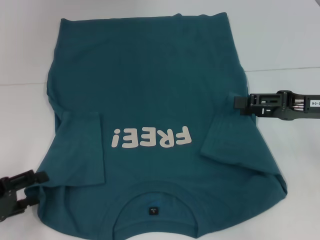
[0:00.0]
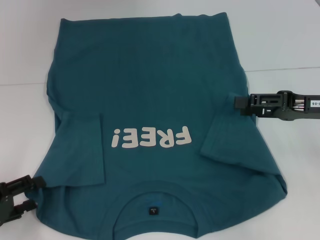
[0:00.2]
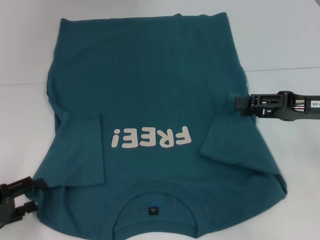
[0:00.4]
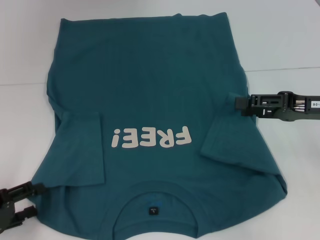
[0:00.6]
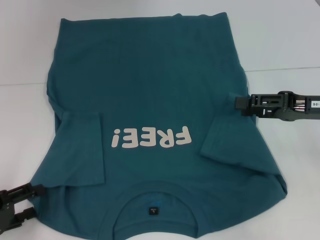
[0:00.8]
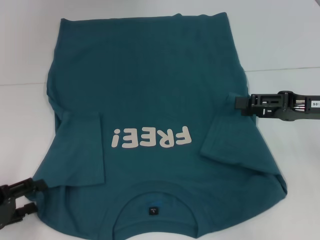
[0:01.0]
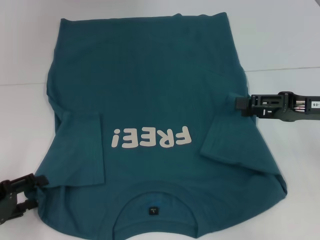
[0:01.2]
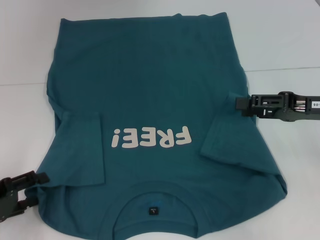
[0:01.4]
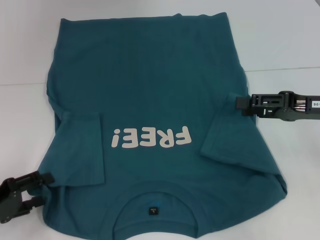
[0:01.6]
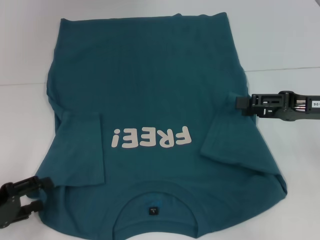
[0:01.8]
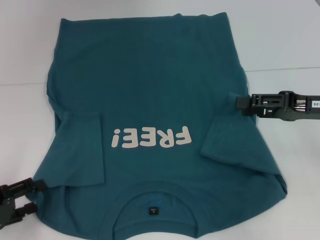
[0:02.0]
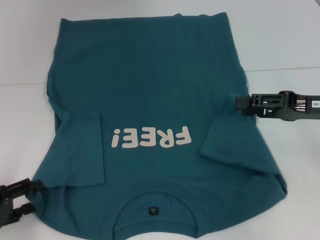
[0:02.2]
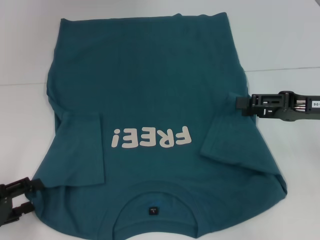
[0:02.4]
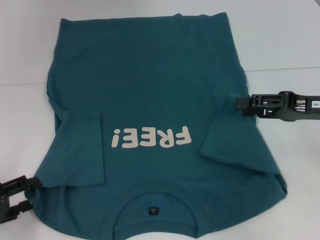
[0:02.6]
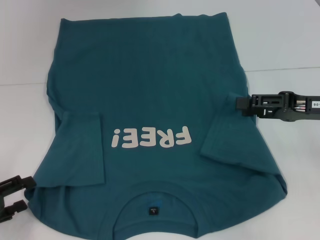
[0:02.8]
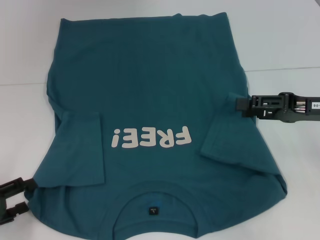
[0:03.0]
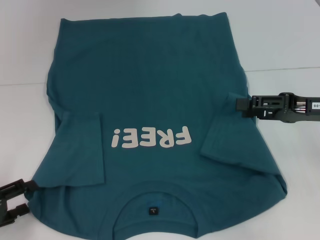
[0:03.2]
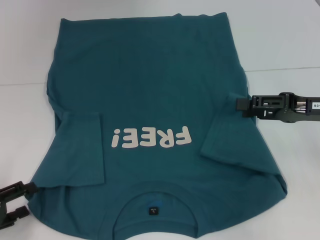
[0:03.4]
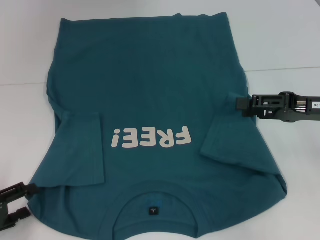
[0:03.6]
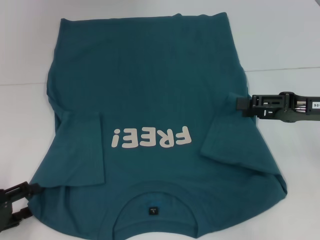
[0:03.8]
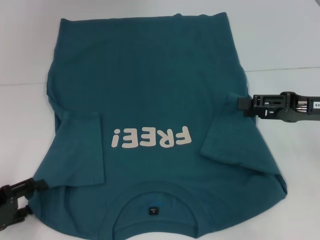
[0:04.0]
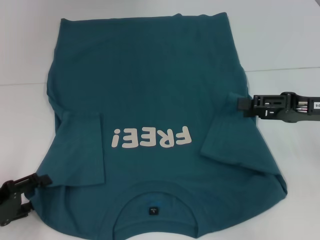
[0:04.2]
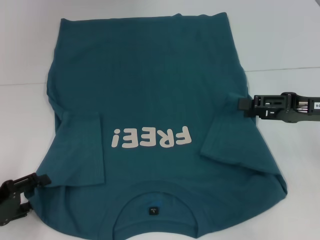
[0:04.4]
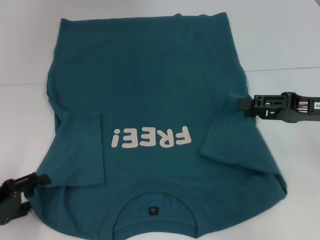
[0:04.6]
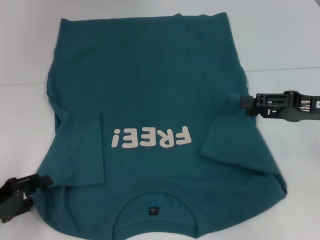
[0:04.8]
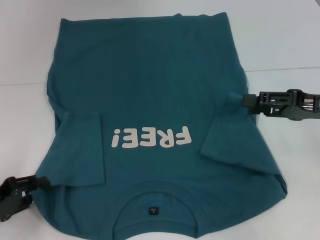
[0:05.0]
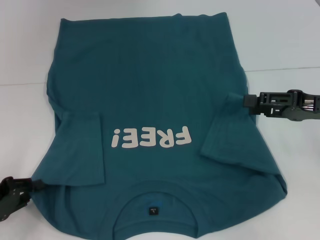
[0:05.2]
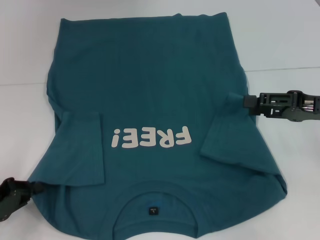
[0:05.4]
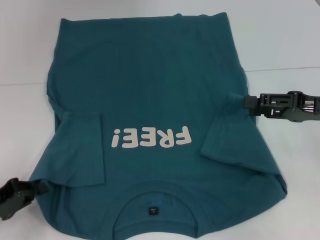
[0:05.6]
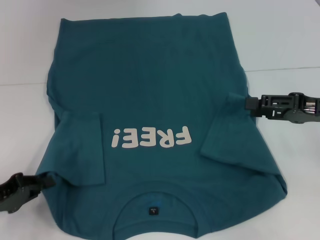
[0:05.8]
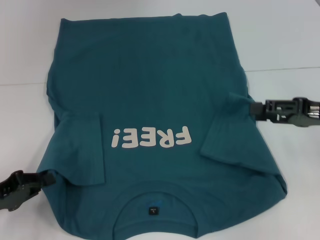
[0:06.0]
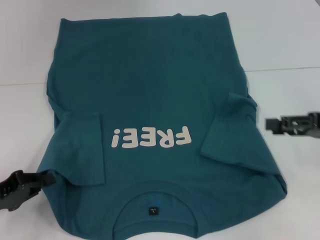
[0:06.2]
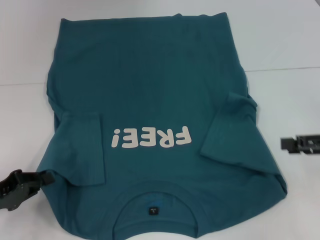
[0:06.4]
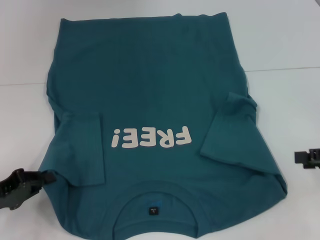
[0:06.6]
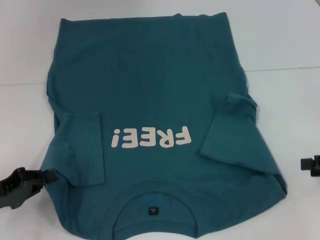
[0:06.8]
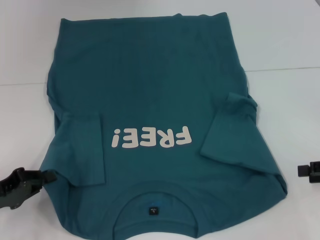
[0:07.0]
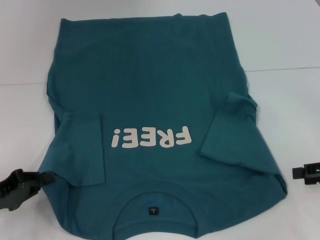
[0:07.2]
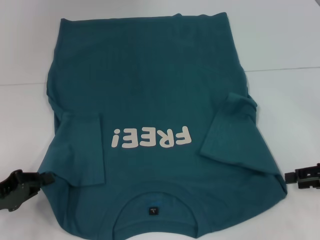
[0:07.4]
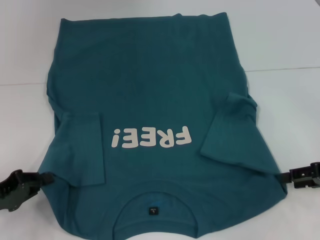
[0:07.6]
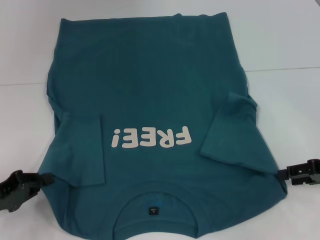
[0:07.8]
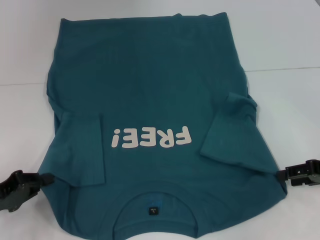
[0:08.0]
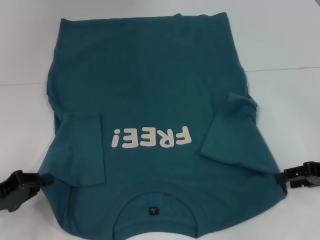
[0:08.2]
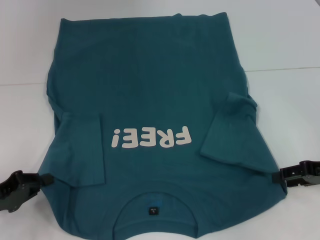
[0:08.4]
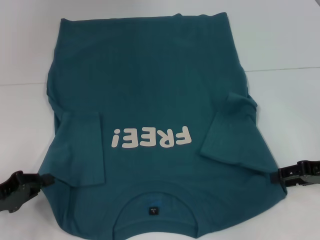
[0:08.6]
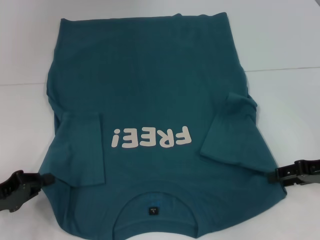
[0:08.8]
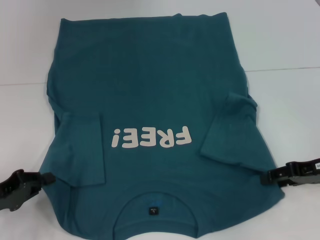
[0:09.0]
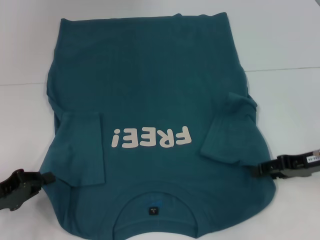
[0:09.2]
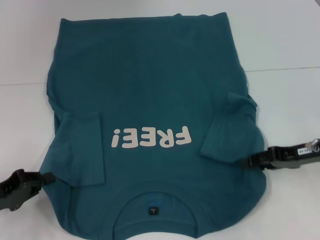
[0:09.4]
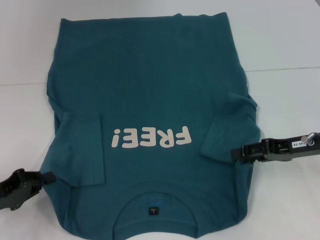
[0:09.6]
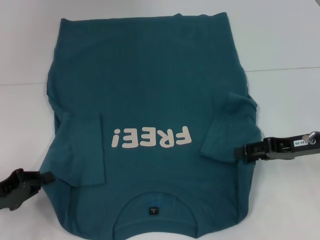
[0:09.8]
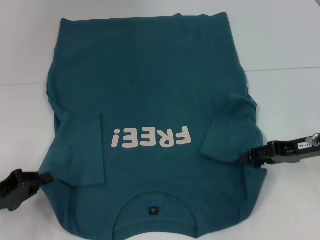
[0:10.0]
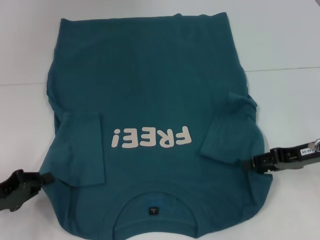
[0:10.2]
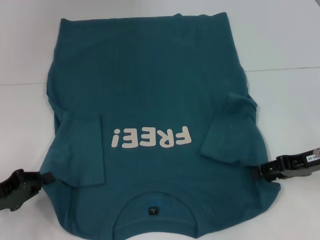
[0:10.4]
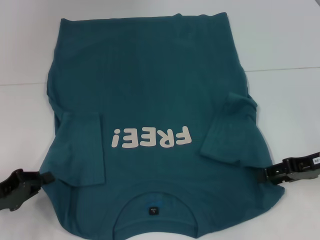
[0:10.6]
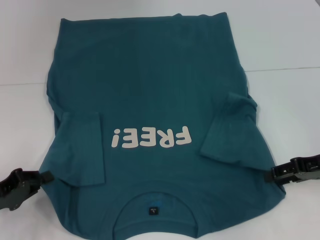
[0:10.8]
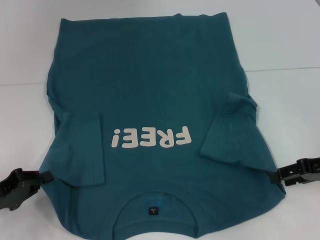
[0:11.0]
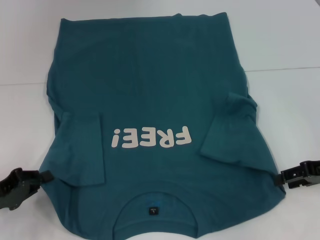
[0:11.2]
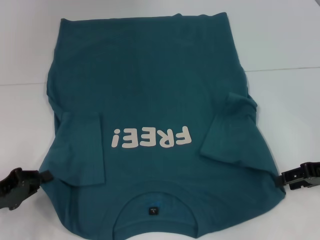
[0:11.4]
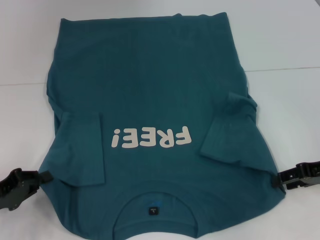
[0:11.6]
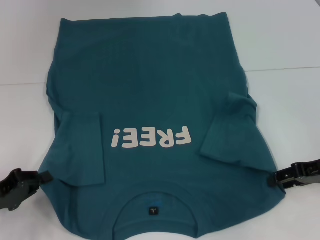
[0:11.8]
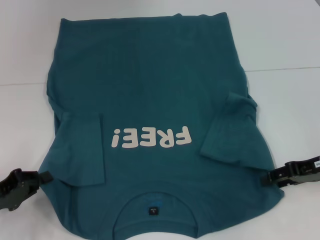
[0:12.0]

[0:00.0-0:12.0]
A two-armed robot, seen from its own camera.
Step, 0:00.0 to 0:05.4: Grab the bottom left corner with your left hand.
0:00.0 to 0:04.4: The grippers move only a little.
0:04.4 to 0:06.0: The left gripper closes.
0:06.0 to 0:07.6: The right gripper travels downward by approximately 5 cm.
0:07.6 to 0:09.0: The grippers make only small movements.
0:09.0 to 0:12.0: There are only small adjustments of the grippers.

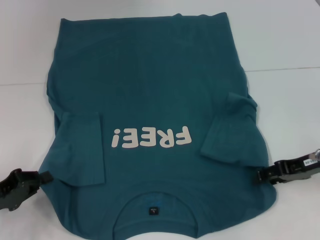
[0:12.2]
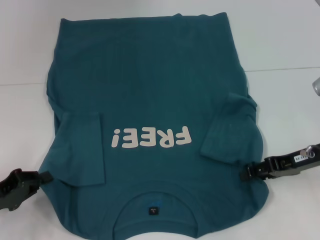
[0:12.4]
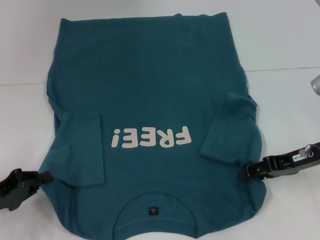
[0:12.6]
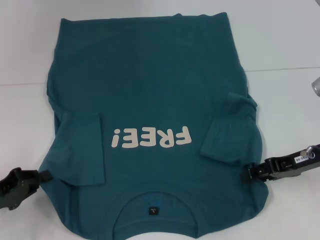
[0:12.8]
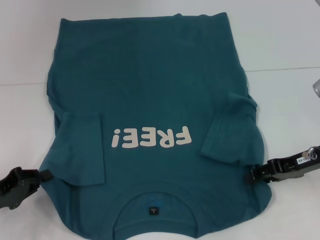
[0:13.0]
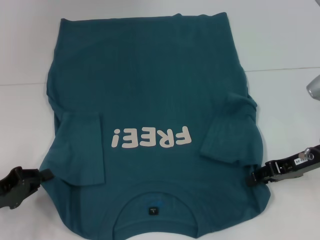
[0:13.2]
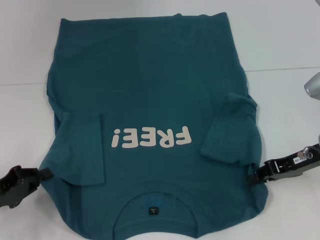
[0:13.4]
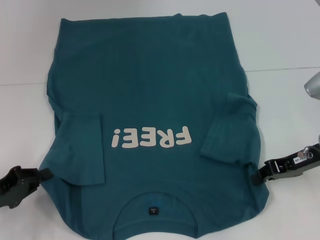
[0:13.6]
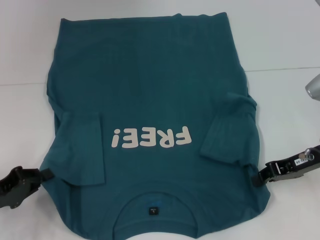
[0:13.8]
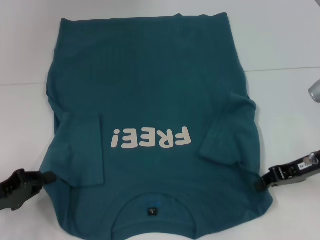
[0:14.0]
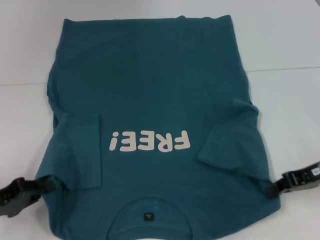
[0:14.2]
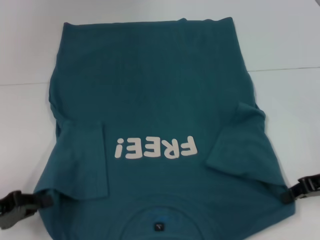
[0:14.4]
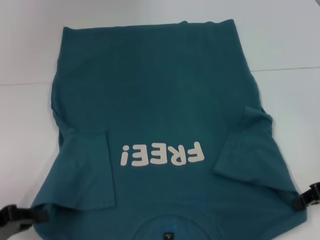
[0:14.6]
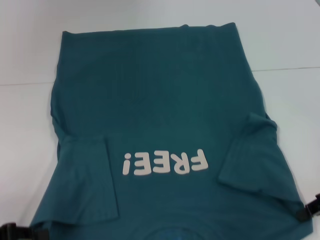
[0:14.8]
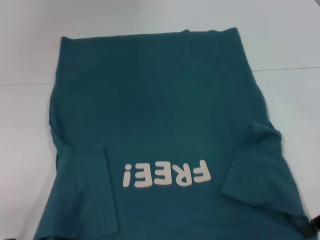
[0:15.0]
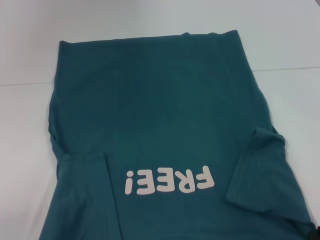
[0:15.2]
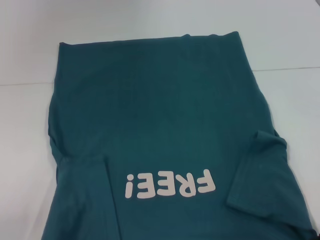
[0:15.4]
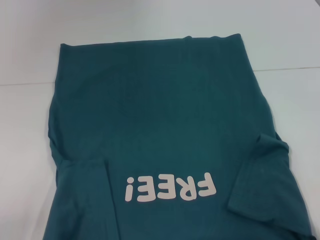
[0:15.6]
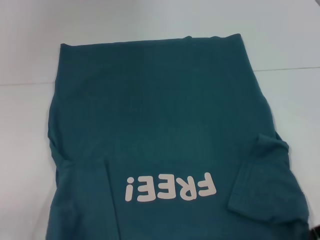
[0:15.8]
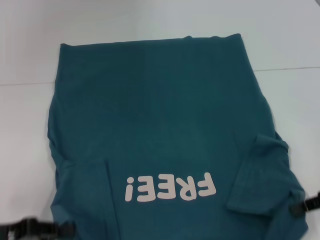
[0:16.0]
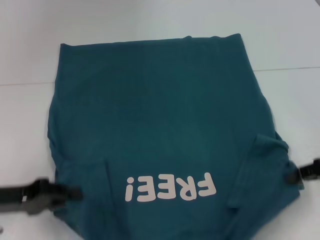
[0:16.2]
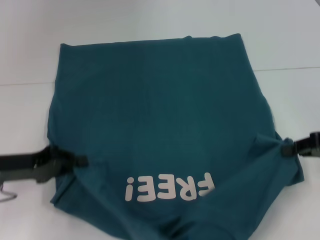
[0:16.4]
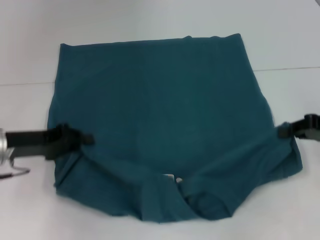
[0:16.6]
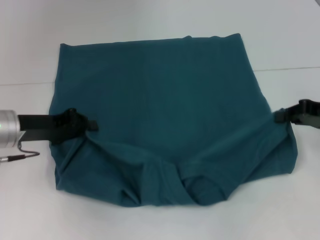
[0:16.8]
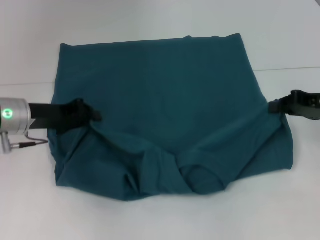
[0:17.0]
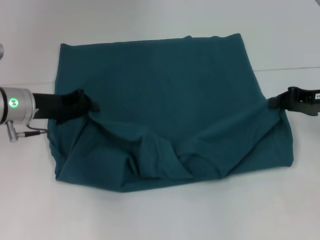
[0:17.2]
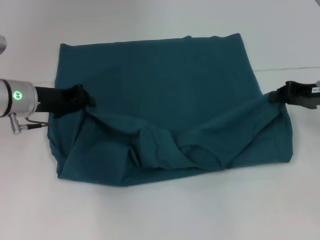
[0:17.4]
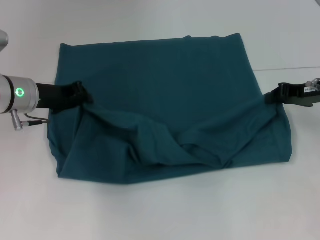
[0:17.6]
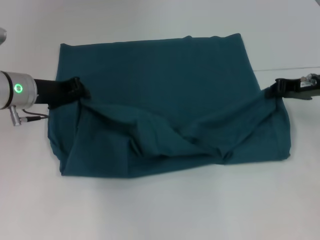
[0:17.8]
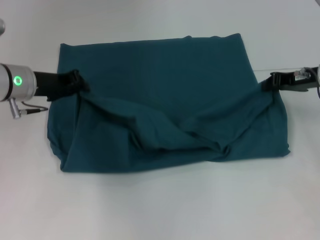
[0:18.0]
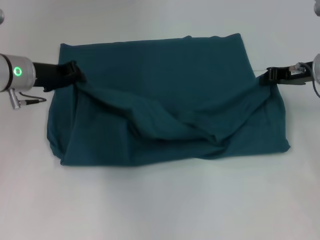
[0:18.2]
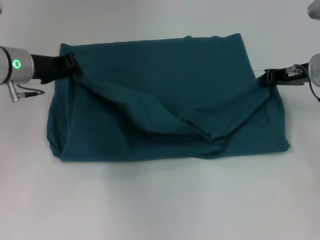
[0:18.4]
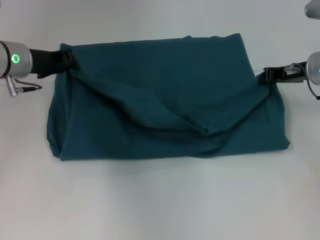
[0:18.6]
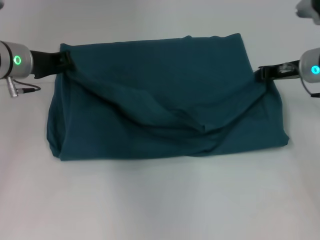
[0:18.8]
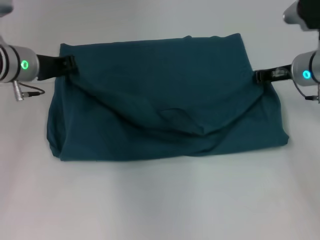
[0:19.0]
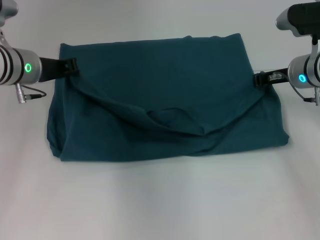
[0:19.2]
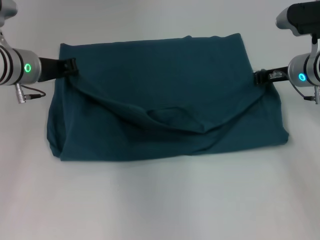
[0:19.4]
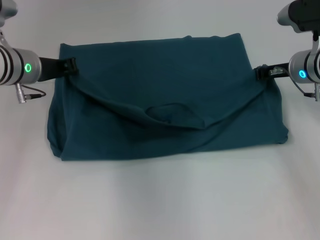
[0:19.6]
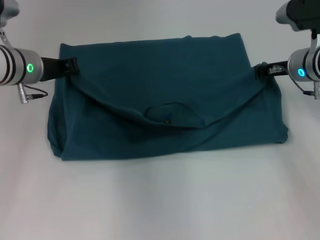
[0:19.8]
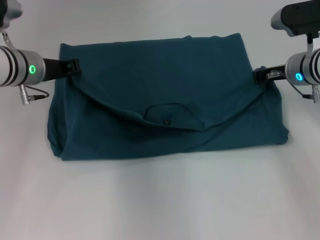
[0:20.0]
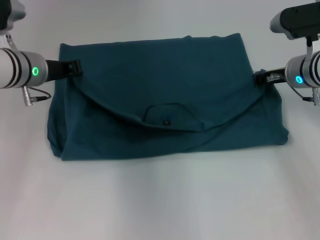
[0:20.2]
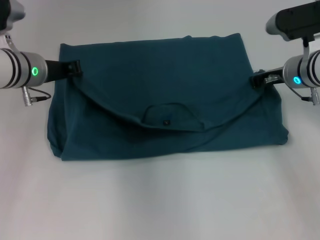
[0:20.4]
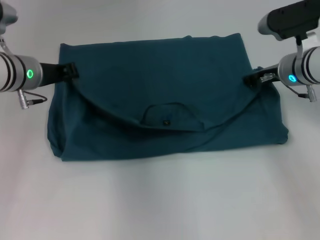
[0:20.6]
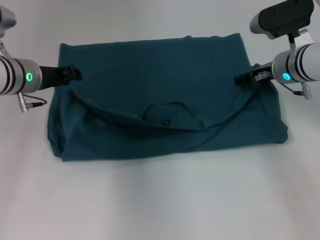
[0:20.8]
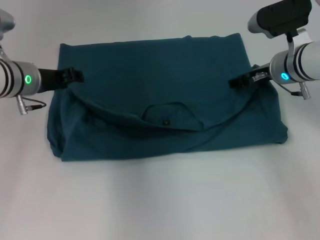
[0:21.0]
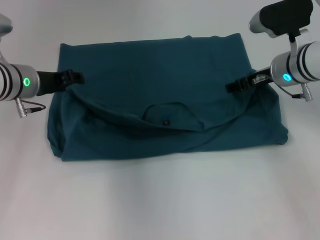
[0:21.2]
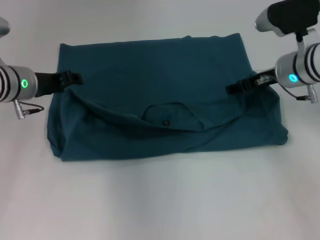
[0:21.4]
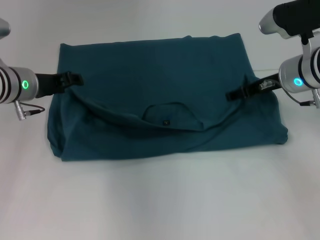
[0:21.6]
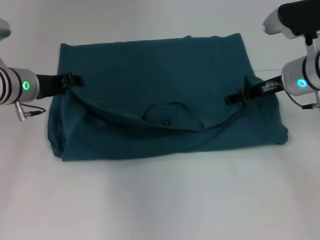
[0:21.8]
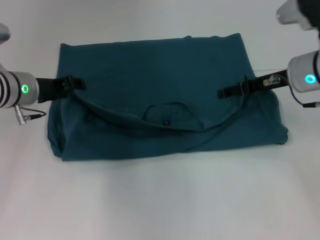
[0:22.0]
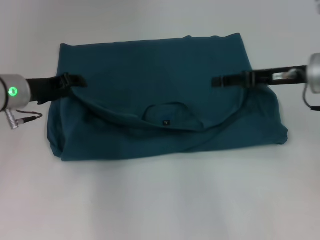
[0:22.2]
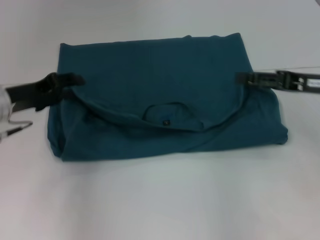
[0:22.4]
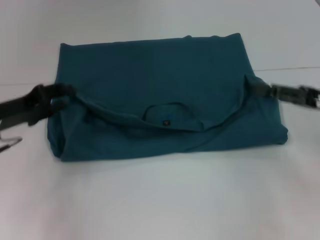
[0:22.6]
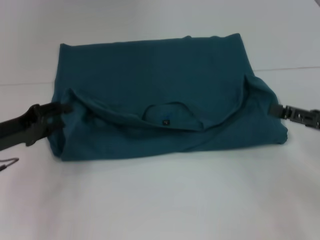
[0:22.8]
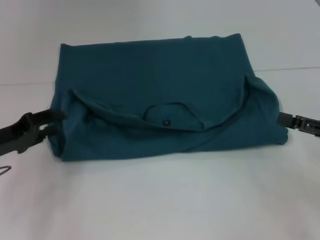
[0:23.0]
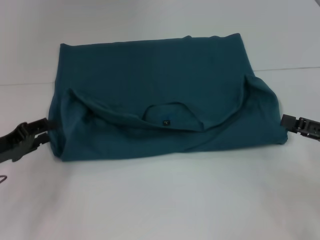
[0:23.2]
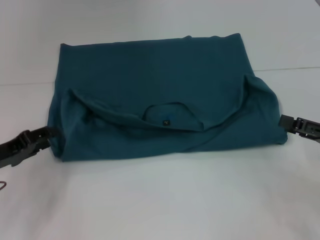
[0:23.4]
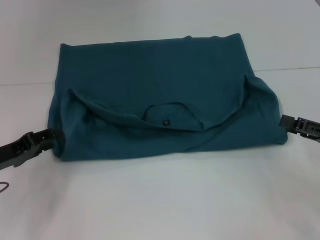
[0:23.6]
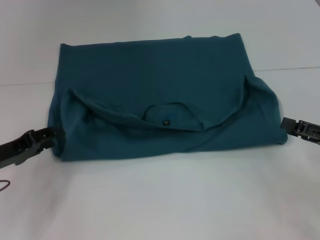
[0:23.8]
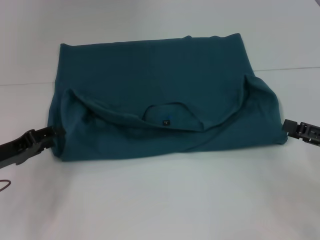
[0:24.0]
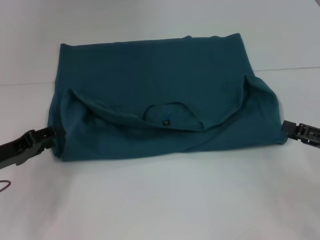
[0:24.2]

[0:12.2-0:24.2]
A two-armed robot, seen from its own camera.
Step, 0:14.2 to 0:22.0: Fold the clothes to the left.
Step, 0:14.2 to 0:22.0: Fold the clothes to the right.
0:12.2 to 0:13.8: The right gripper closes.
0:13.8 to 0:15.2: The right gripper goes roughly 10 cm backward and to the right. The left gripper goes about 5 cm backward.
0:15.2 to 0:16.6: The right gripper is displaced forward by roughly 5 cm, while the left gripper goes roughly 15 cm forward and to the right.
0:16.6 to 0:18.2: The right gripper heads forward and to the left, covering roughly 10 cm; the left gripper moves forward and upward, approximately 10 cm.
0:18.2 to 0:19.8: The grippers make only small movements.
0:19.8 to 0:21.2: The left gripper opens up; the right gripper opens up.
0:21.2 to 0:22.6: The right gripper travels backward and to the right by approximately 20 cm. The left gripper shifts some 10 cm backward and to the left.
0:22.6 to 0:24.2: The right gripper shifts by about 5 cm, while the left gripper moves some 5 cm.
